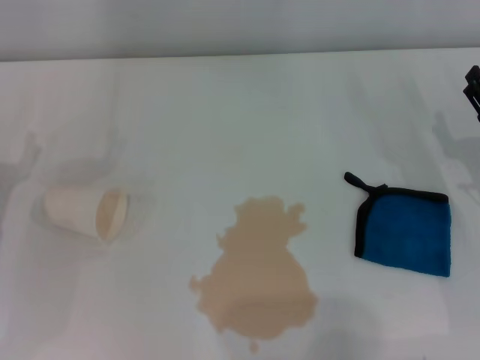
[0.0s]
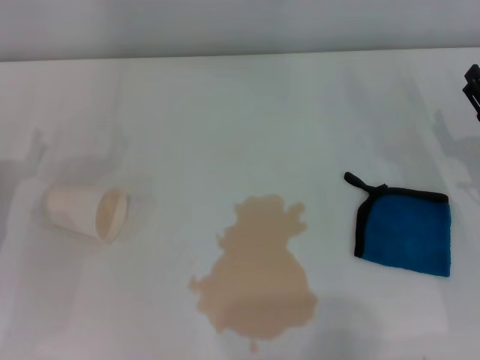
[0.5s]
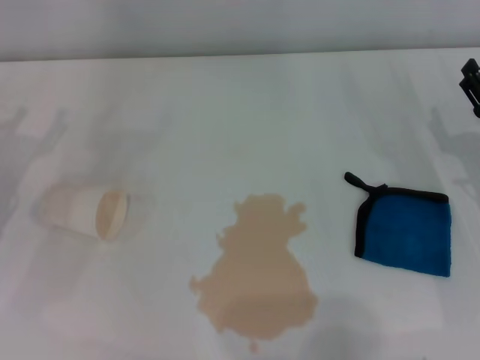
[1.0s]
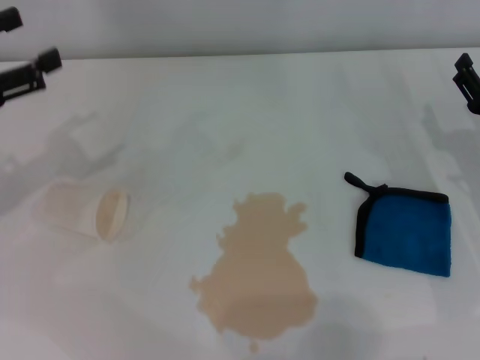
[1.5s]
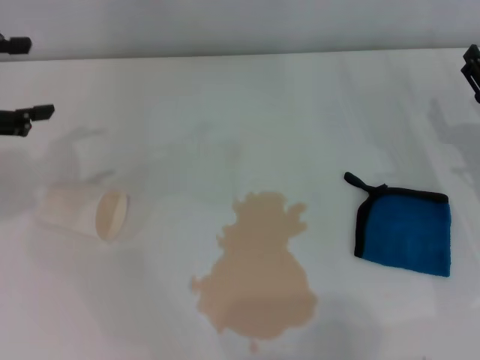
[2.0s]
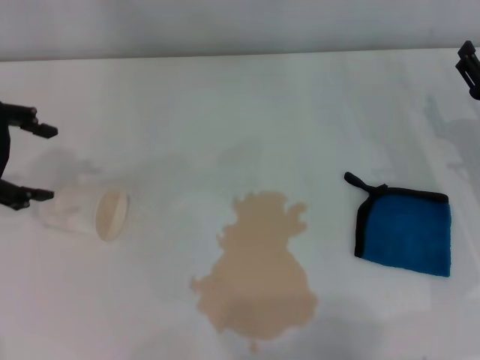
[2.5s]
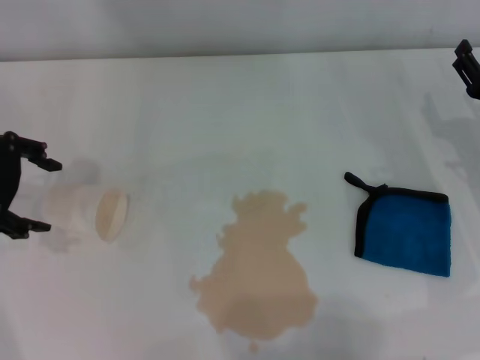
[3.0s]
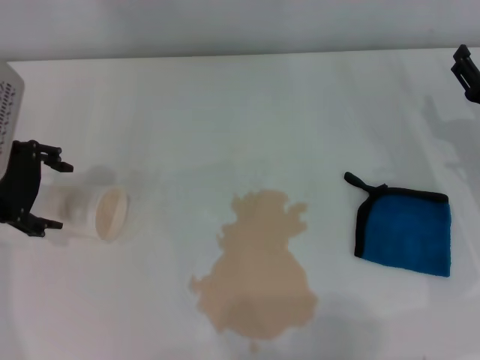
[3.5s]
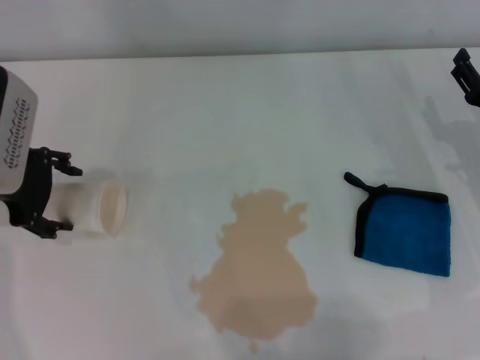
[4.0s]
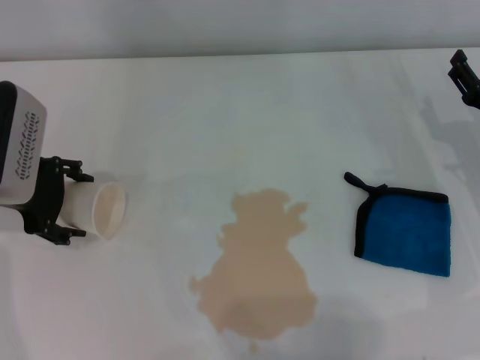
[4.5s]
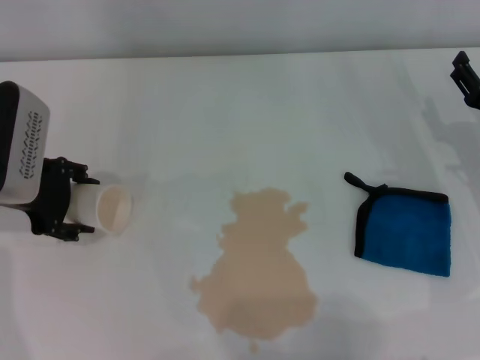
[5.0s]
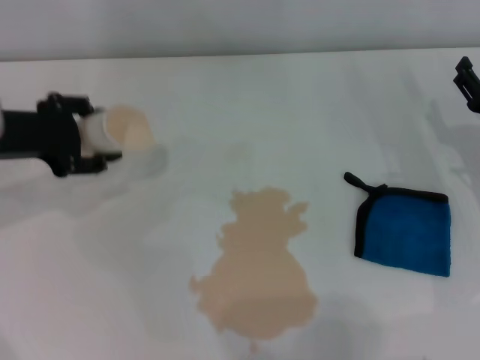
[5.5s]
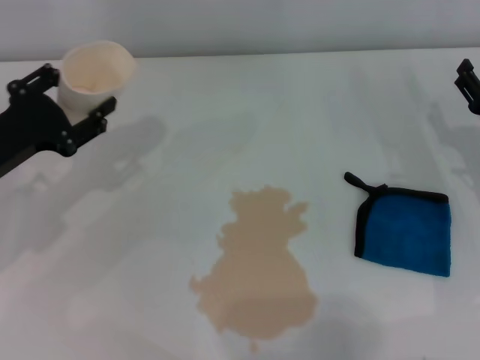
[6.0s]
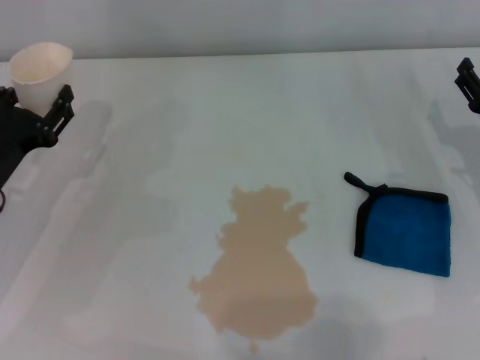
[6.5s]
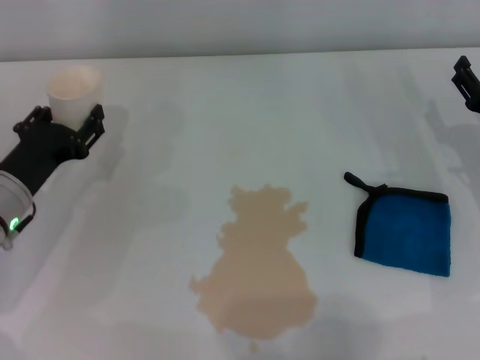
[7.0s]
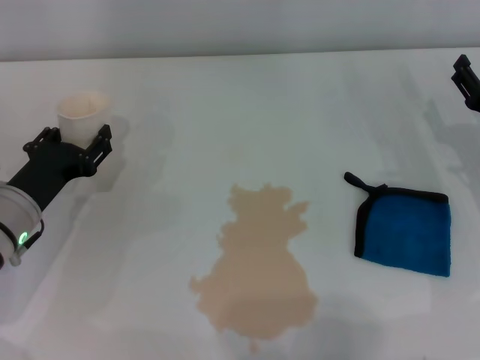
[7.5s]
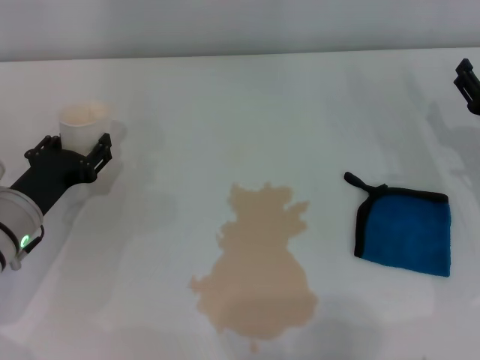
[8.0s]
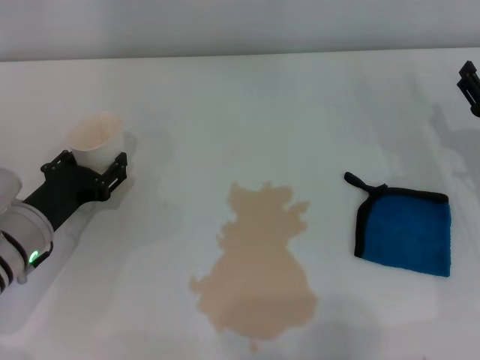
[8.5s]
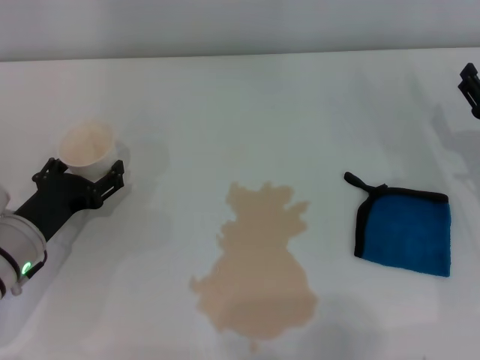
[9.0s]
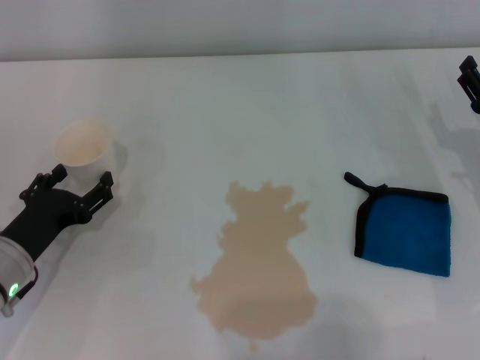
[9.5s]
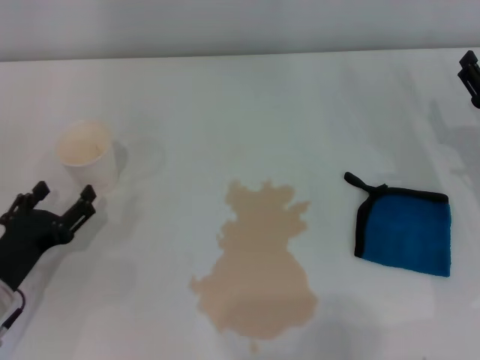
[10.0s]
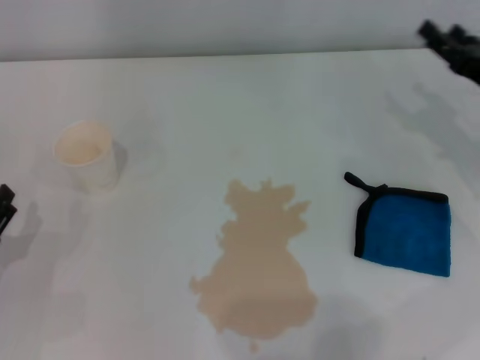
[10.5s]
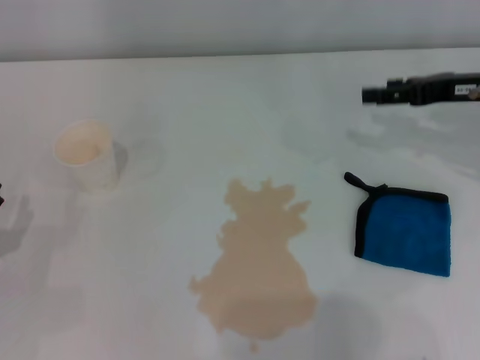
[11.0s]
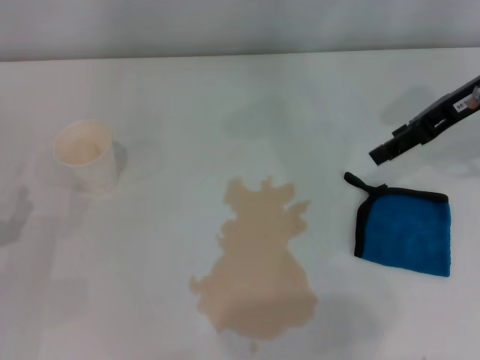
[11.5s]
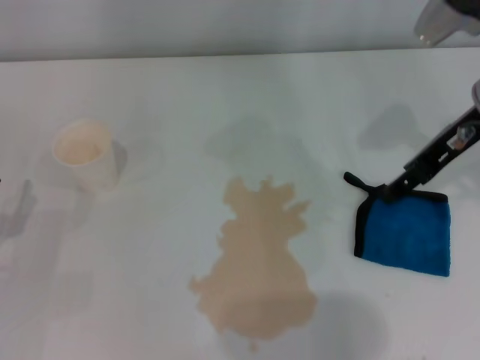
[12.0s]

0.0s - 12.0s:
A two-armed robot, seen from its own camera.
Step, 0.0s - 5.0s: Grasp the paper cup with the left gripper.
Step, 5.5s - 9.0s: Stand the paper cup upright with the left gripper.
0.0s - 2.0s: The left gripper goes approximately 15 cm upward.
2.0s - 4.0s: The left gripper shifts roughly 10 cm to the right and downward.
4.0s - 6.0s: The left gripper moves downward, roughly 5 cm, and closes up.
6.0s - 8.0s: The left gripper moves downward, about 5 cm.
8.0s - 10.0s: The left gripper shifts approximately 10 cm backward, and opens.
10.0s - 12.0s: The left gripper moves to the left, roughly 5 cm, while the right gripper is displaced upward, to the left and forward by approximately 20 cm.

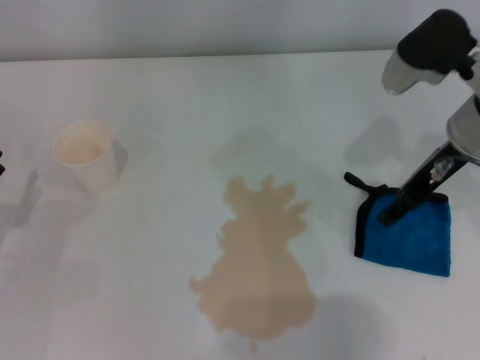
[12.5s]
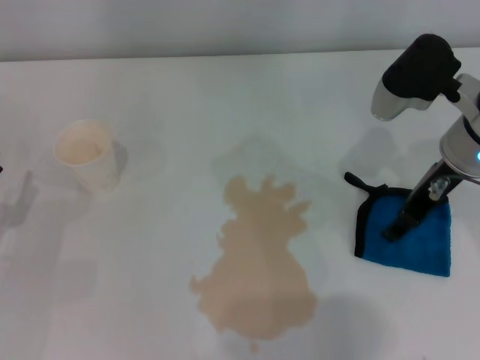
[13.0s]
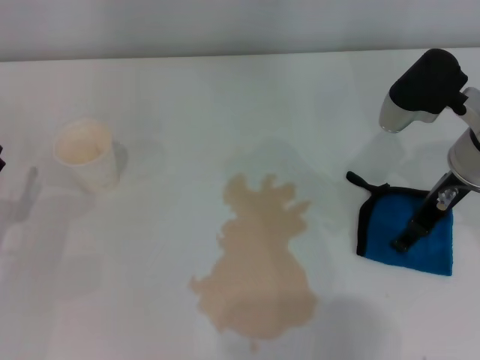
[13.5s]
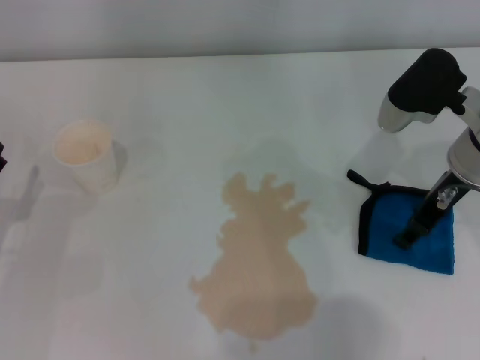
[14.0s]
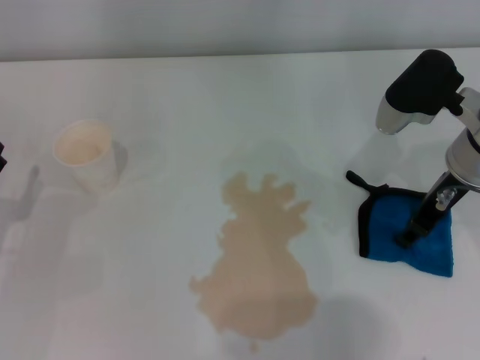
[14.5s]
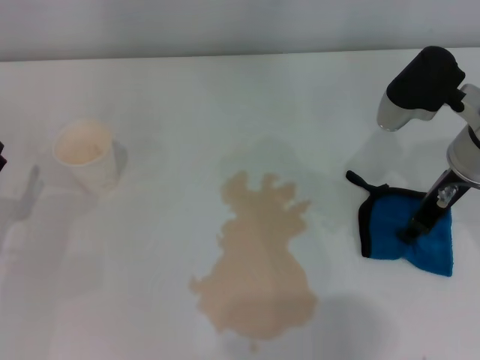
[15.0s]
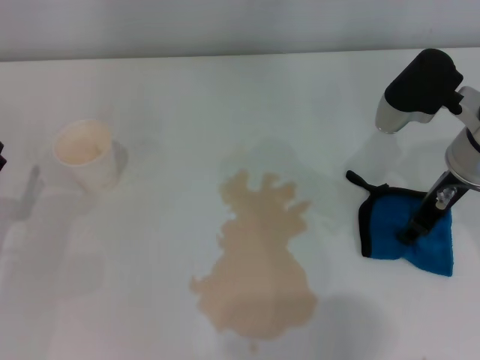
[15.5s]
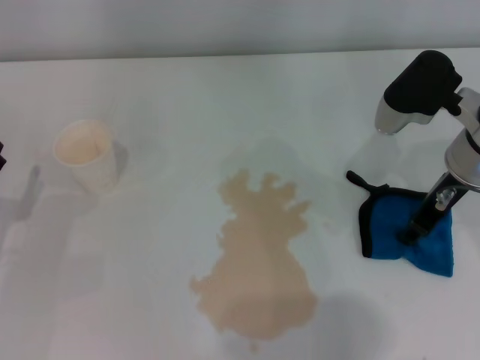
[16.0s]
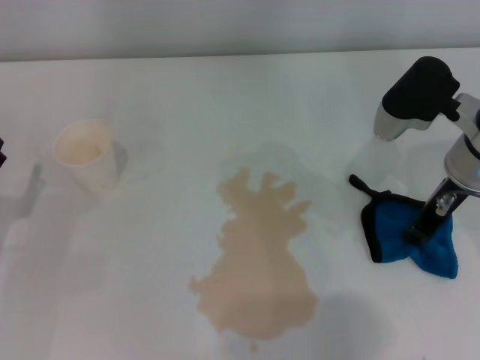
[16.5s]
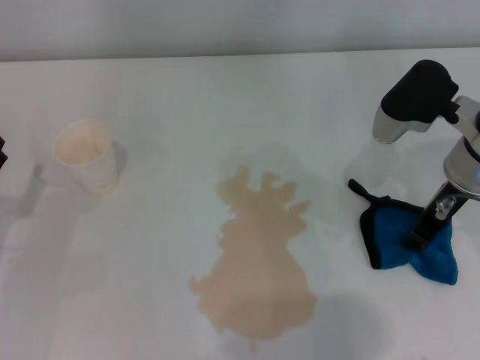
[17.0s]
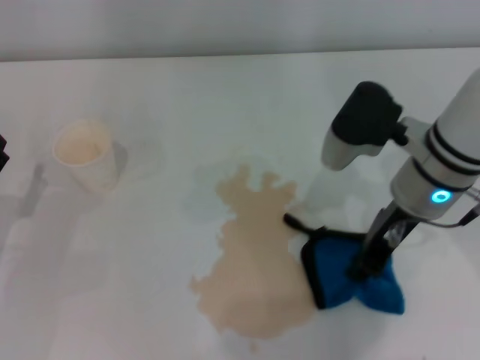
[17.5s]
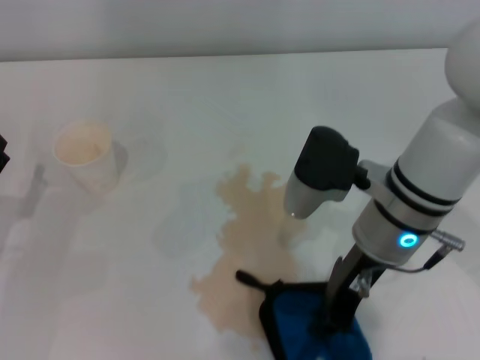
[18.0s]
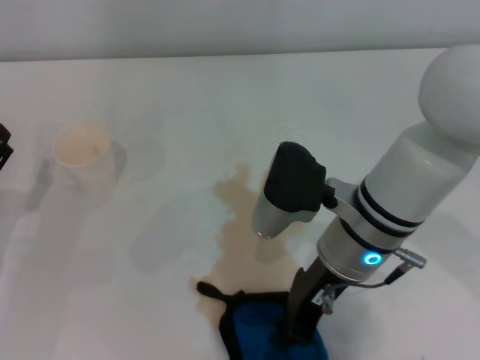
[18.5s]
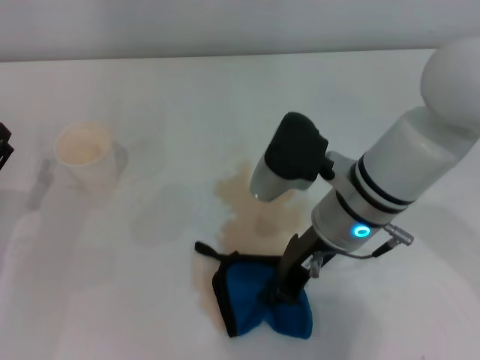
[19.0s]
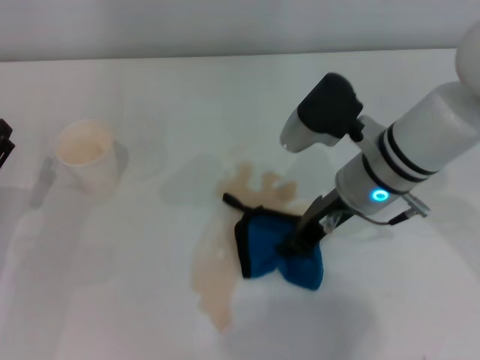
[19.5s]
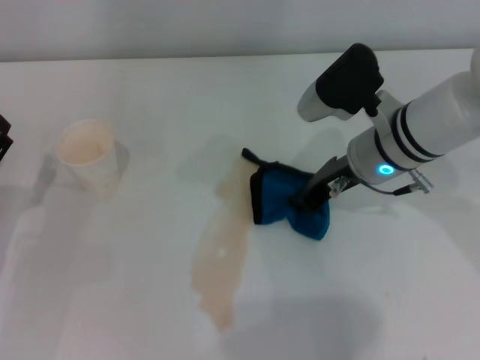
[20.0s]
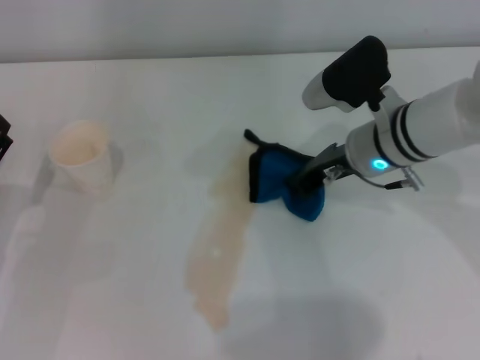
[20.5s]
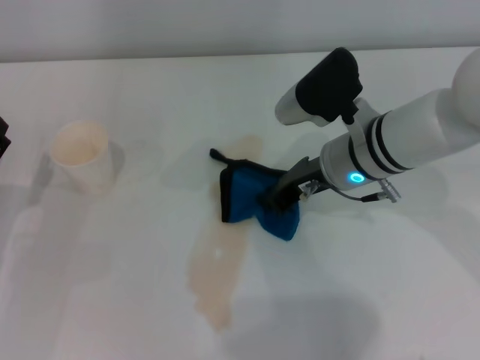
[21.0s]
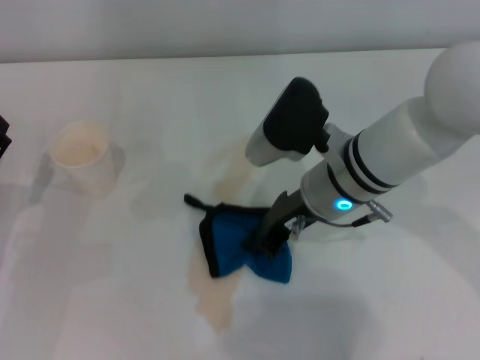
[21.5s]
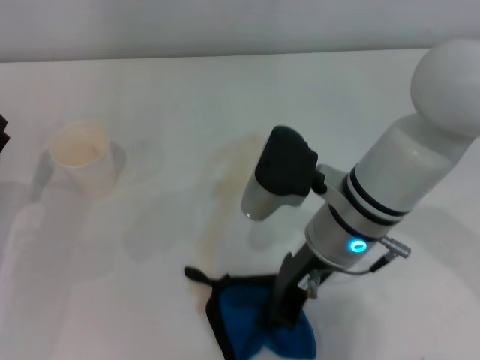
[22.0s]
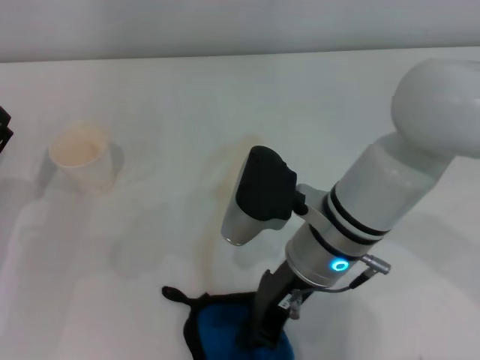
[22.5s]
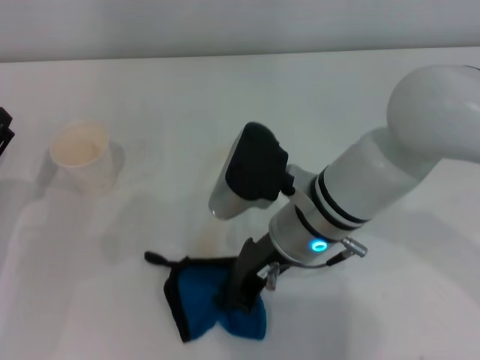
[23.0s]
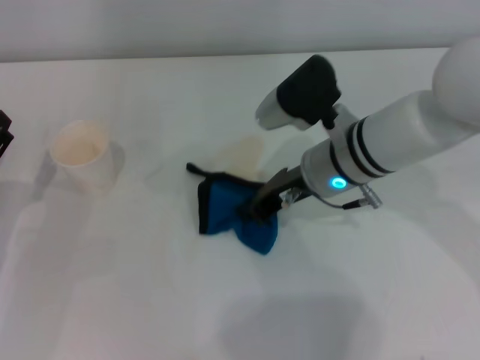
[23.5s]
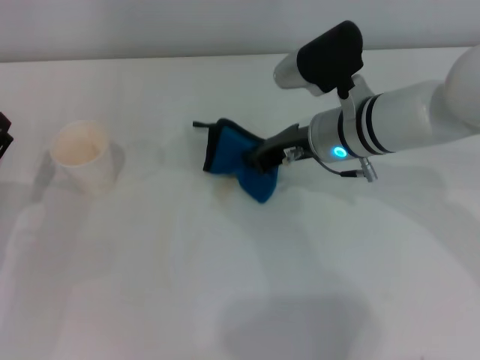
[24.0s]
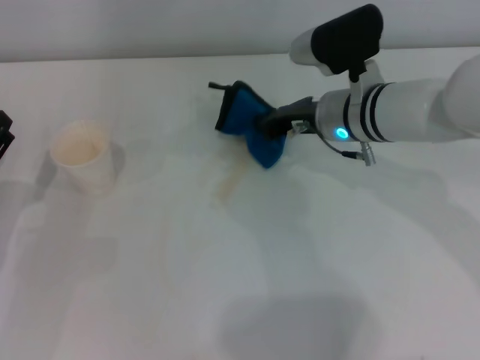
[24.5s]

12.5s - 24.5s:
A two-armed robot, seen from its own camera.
Step, 12.5s - 16.5s: Grasp the rag with the right gripper.
12.5s - 14.5s: There are only small adjustments of the grippers.
14.5s - 16.5s: The right gripper closes up.
16.5s - 18.5s: The right gripper is displaced to the left and backward by about 15 cm.
18.5s - 20.5s: The right gripper goes about 10 cm forward and to the right.
20.5s - 22.5s: The right gripper is displaced to the left and backward by approximately 10 cm.
22.5s - 24.5s: The right gripper moves forward and to the right, roughly 15 cm.

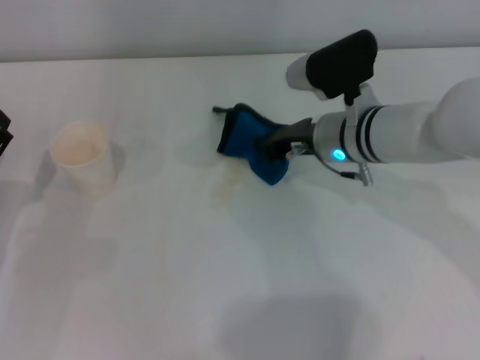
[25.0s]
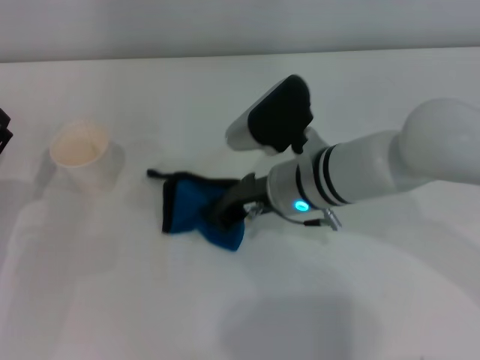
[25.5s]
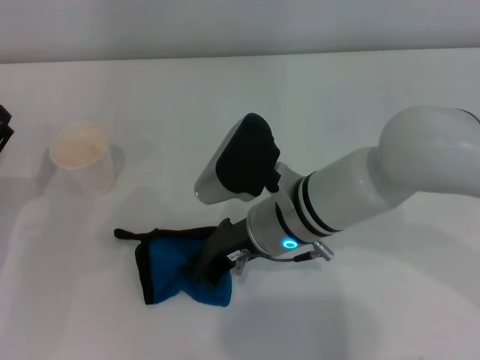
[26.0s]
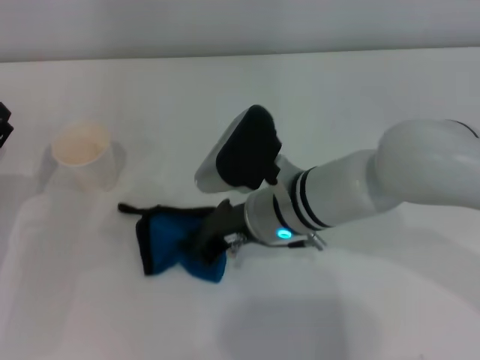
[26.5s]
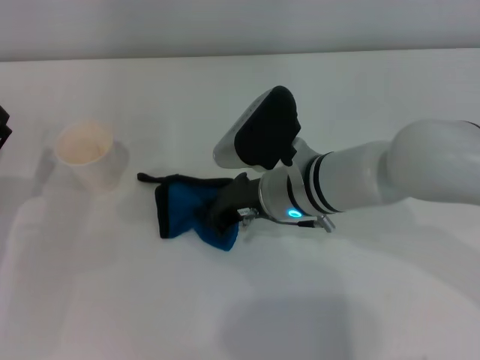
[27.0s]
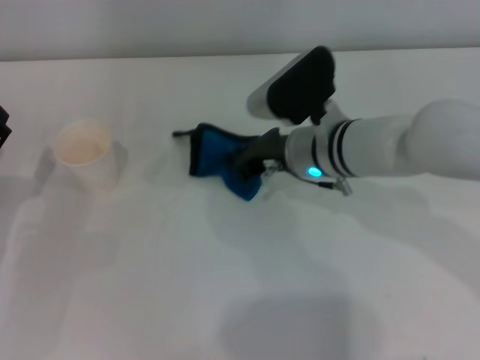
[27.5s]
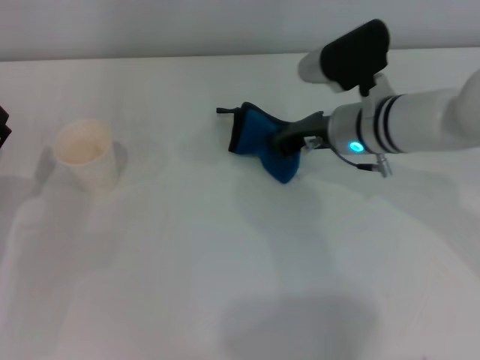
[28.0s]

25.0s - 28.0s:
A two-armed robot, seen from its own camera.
25.0s - 26.5s: The right gripper heads to the left and backward, covering about 10 cm.
26.5s - 28.0s: The right gripper shifts roughly 10 cm to the right and forward.
